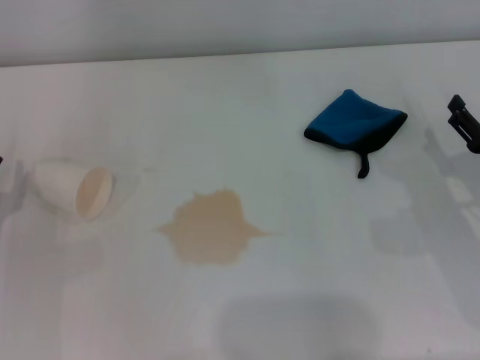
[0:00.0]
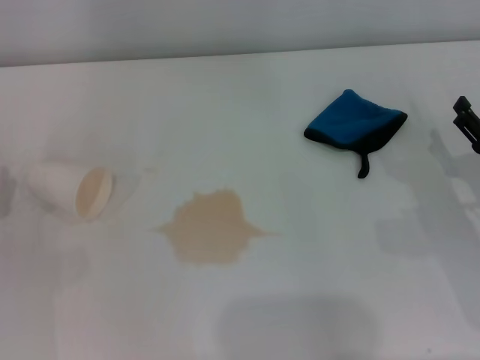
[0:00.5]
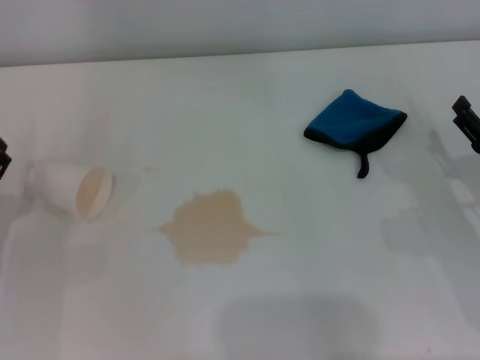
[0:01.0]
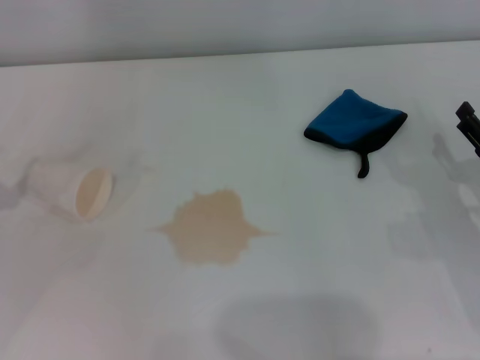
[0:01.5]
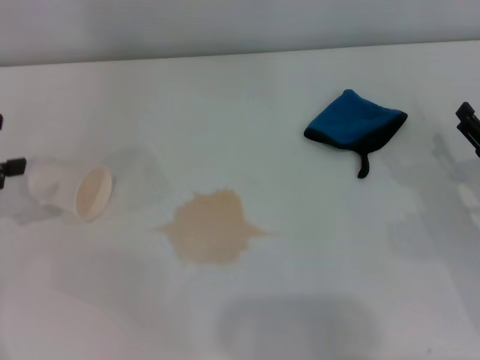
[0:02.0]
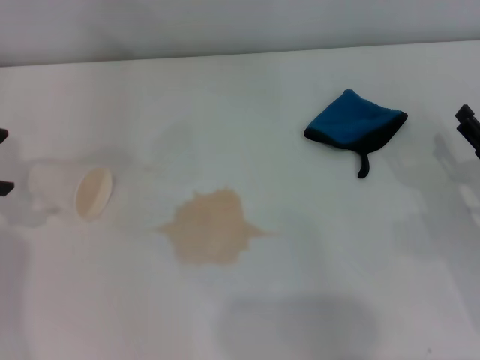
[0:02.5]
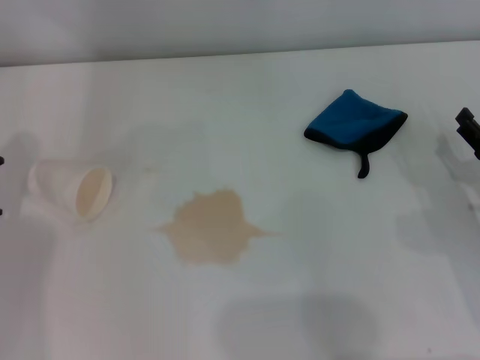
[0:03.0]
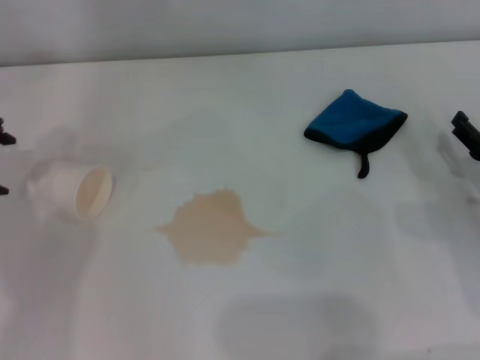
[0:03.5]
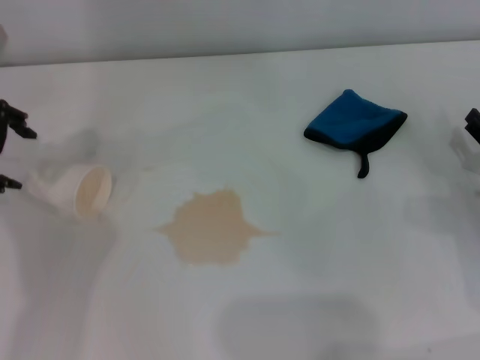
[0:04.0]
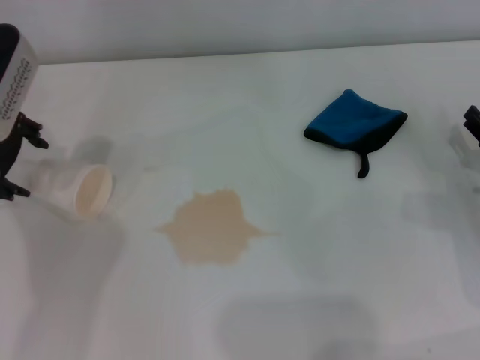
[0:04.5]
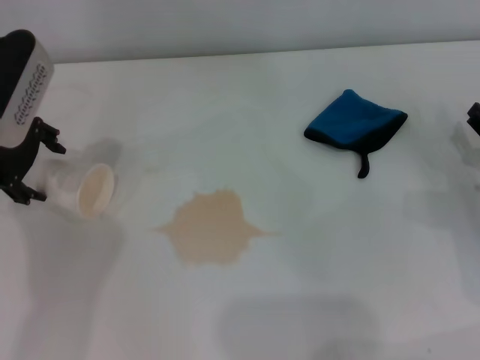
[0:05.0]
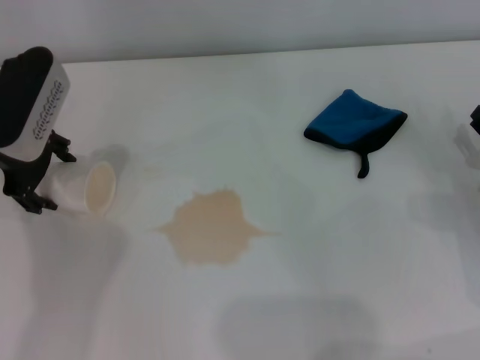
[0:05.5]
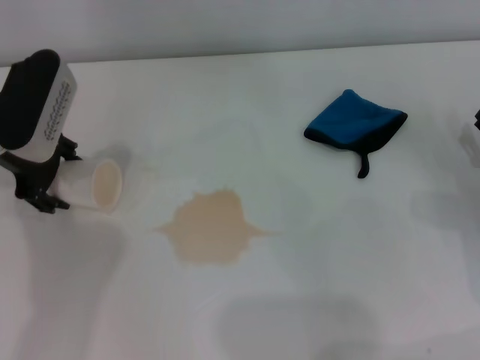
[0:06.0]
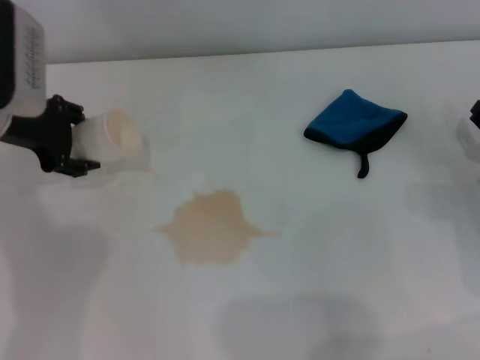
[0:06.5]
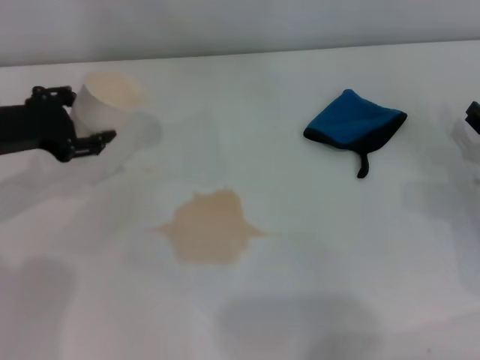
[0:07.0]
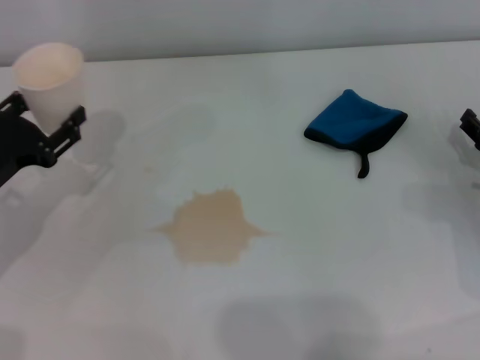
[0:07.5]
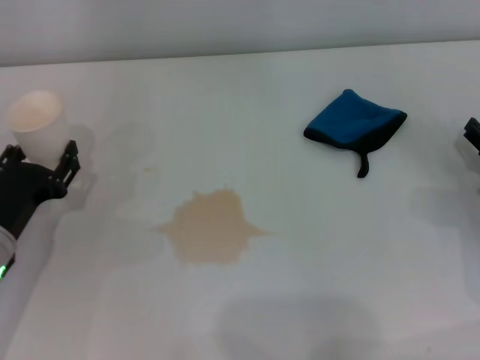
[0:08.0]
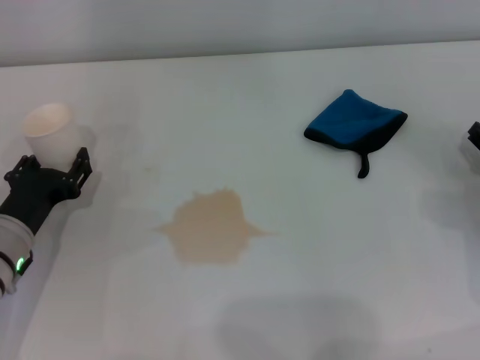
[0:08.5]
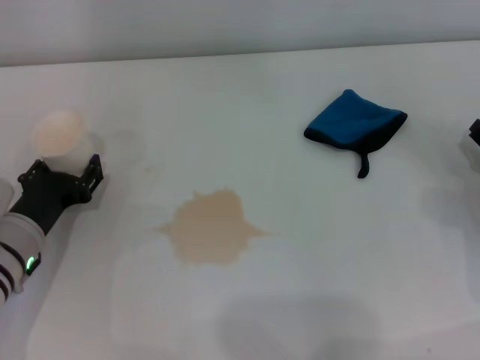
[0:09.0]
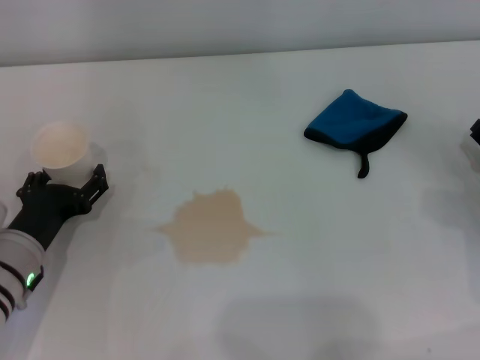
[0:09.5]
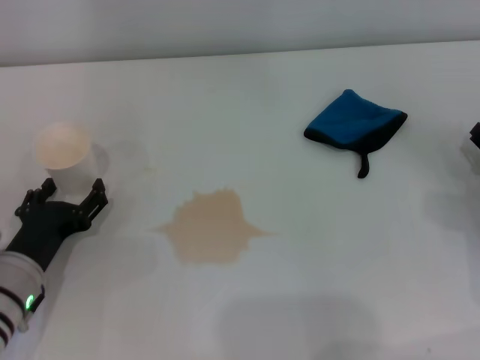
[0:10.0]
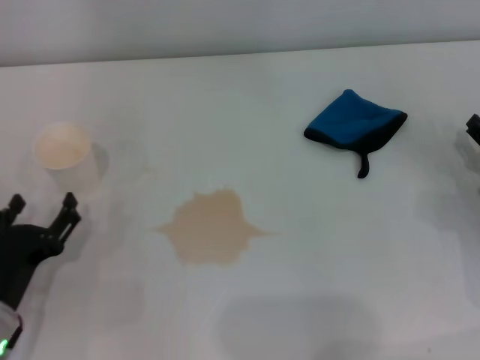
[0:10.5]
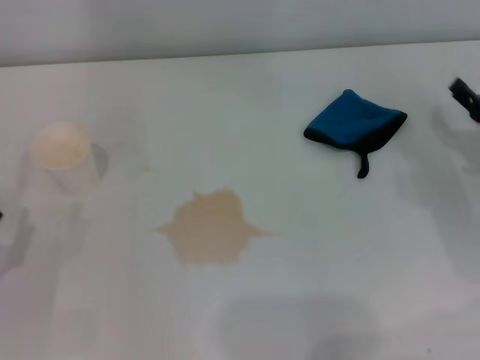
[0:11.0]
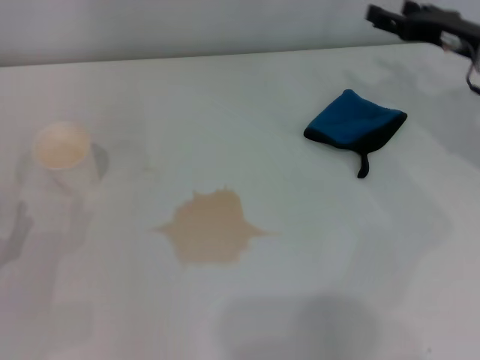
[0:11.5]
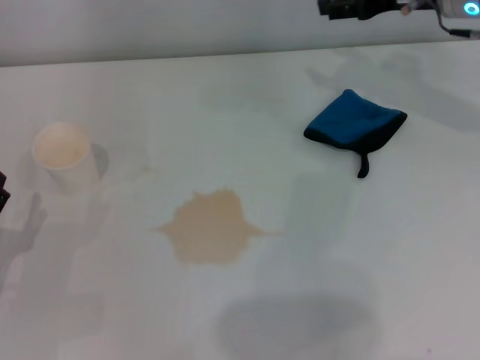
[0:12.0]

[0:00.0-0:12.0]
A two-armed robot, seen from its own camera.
Step, 0:00.0 to 0:05.5: Grasp the paper cup with the left gripper.
Step, 0:06.0 to 0:09.0: Stand the paper cup upright with the left gripper.
0:02.0 to 0:04.0: The left gripper shifts approximately 15 cm to the right and forward.
0:04.0 to 0:06.0: The left gripper moves some 5 cm.
0:06.0 to 0:08.0: The left gripper shifts about 20 cm backward and downward, and closes up.
0:08.0 to 0:10.0: The left gripper opens its fingers.
0:10.0 to 0:12.0: The left gripper moves to the left, about 5 cm. Meanwhile the right gripper goes about 30 cm forward, upward and to the left.

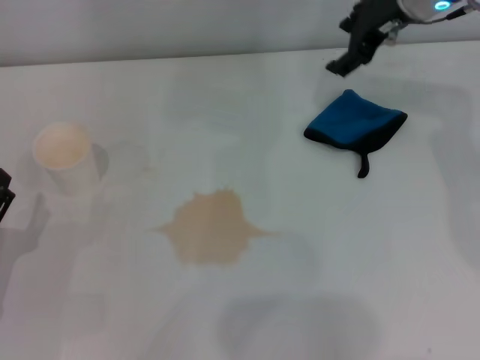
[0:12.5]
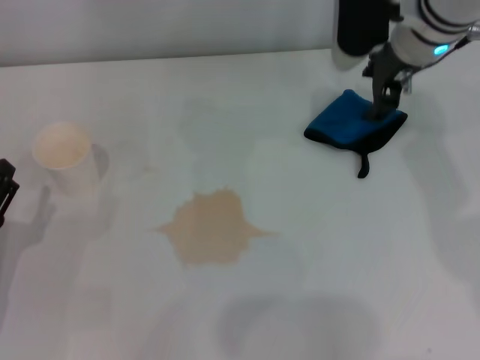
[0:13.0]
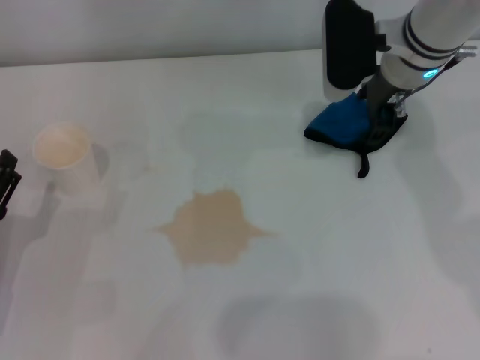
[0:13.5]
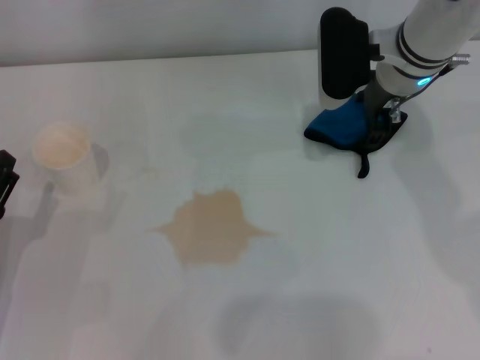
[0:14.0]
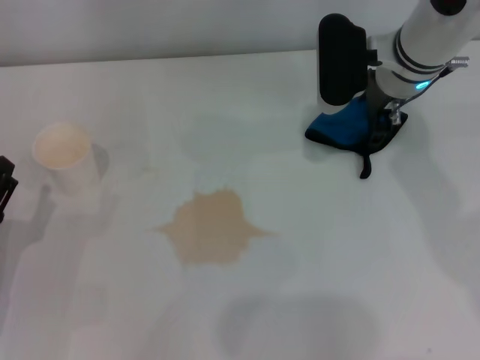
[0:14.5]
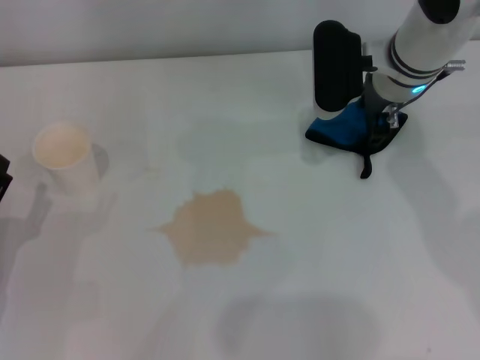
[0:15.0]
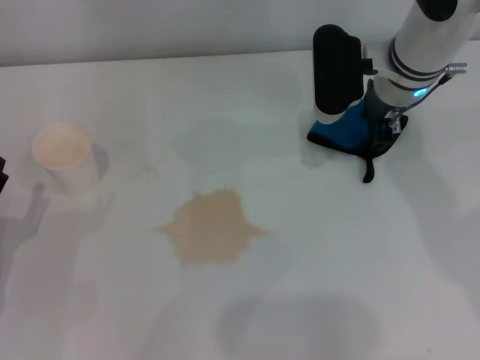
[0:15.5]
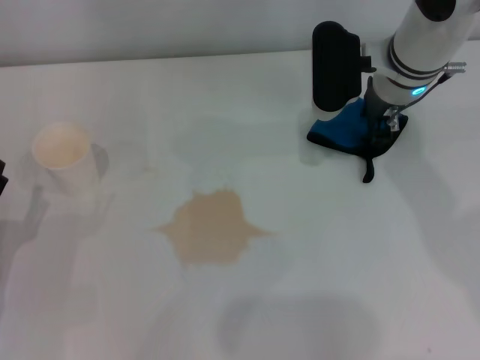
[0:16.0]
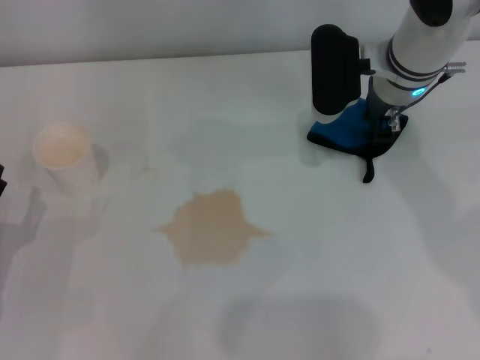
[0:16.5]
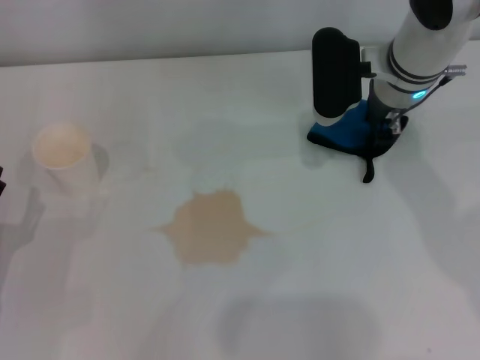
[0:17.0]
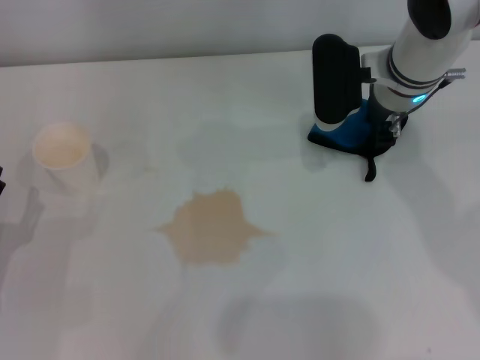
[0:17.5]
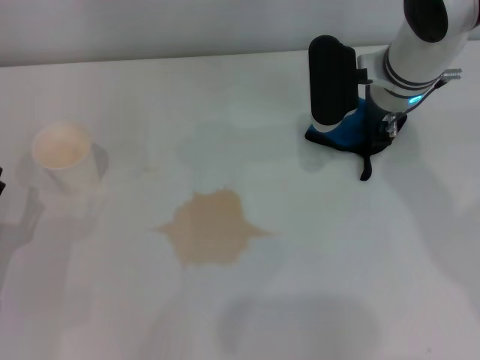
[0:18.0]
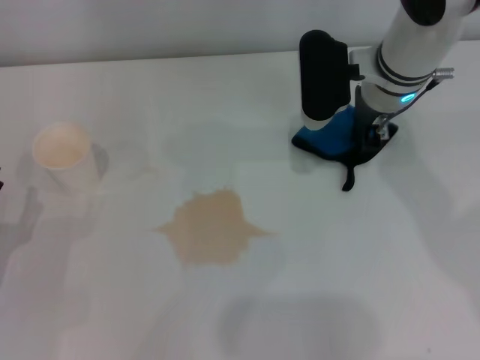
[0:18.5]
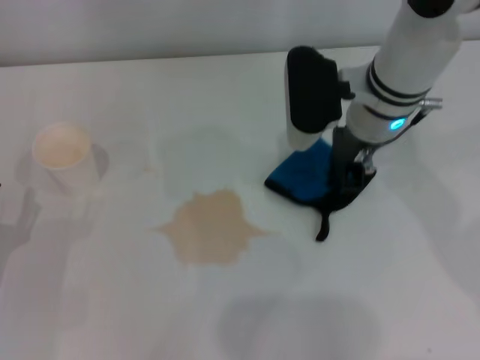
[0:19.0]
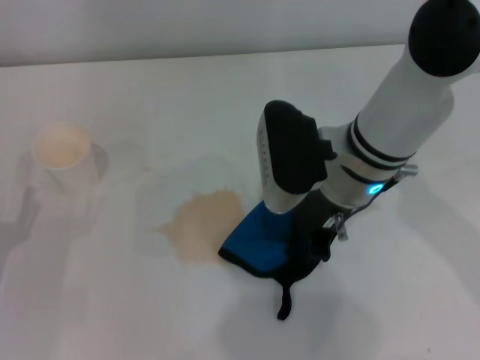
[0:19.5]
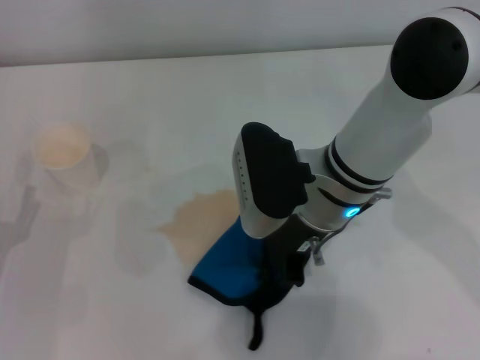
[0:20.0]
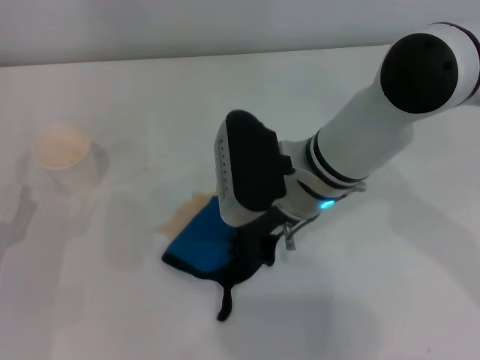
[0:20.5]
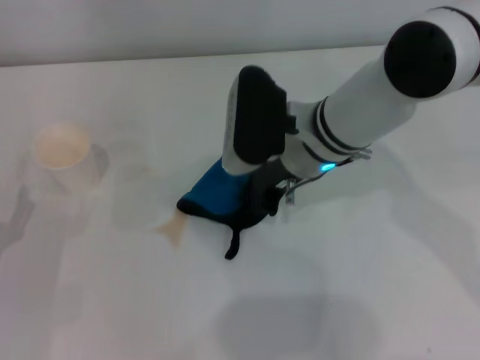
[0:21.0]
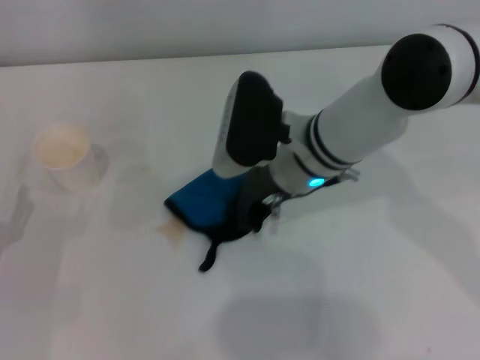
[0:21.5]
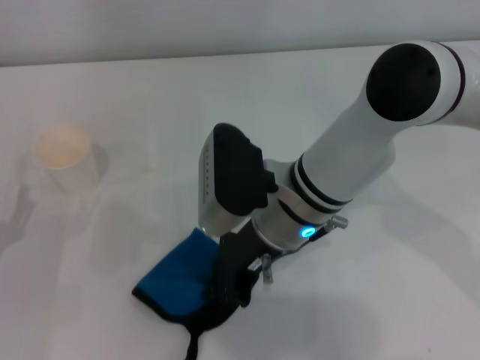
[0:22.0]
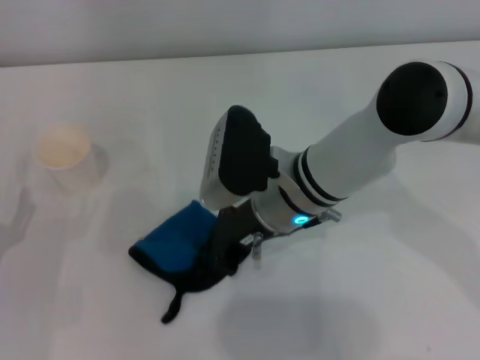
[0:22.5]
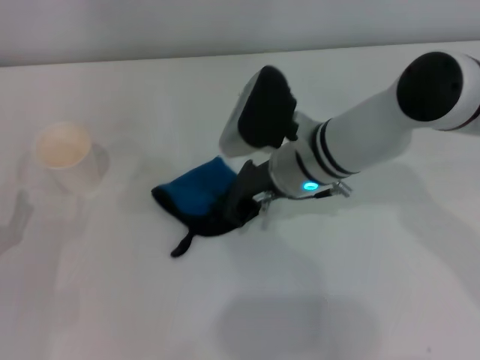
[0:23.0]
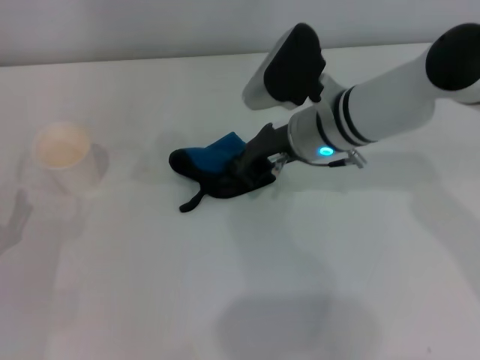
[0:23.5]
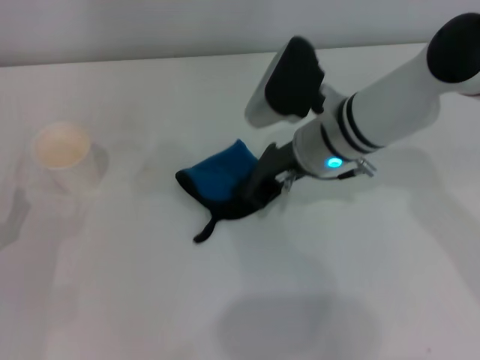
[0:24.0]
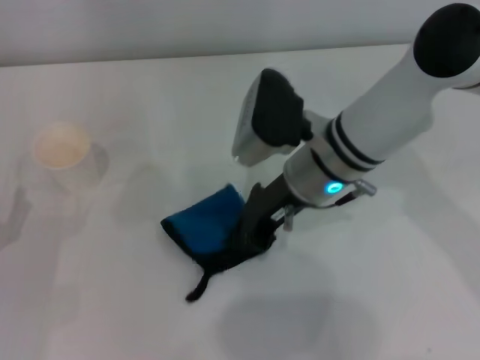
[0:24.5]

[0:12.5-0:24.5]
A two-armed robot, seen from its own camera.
Step, 0:12.5 to 0:18.0: Grasp the rag with the right gripper.
0:12.5 to 0:14.5: The right gripper heads downward, covering roughly 5 cm.
0:14.5 to 0:16.5: The right gripper closes up.
0:16.5 to 0:18.5: Both grippers stay about where they are.
0:18.5 to 0:20.5: The right gripper moves backward and to the left, roughly 15 cm.
0:20.5 to 0:22.5: The grippers make only small movements.

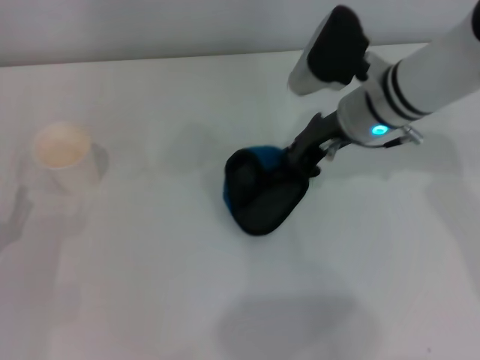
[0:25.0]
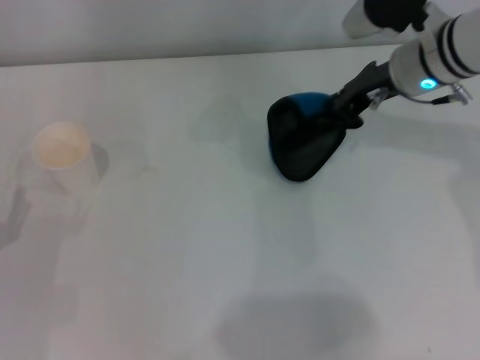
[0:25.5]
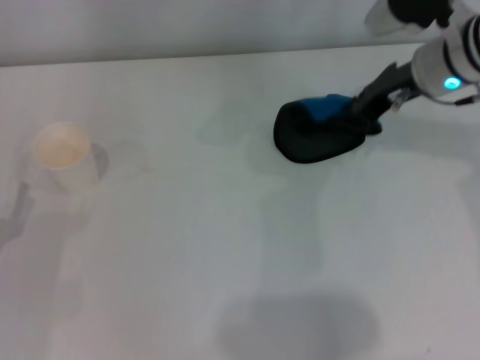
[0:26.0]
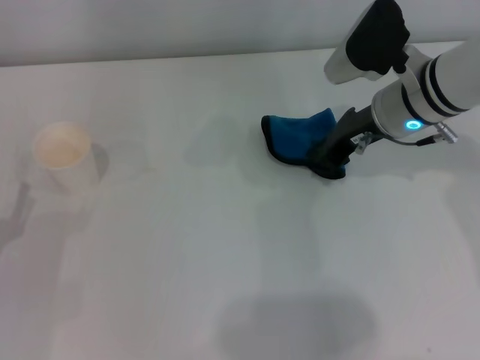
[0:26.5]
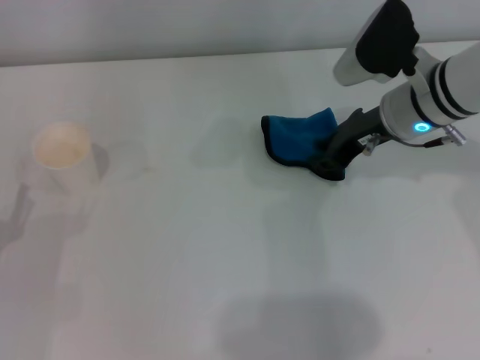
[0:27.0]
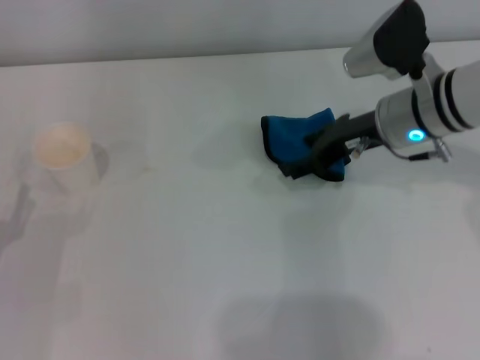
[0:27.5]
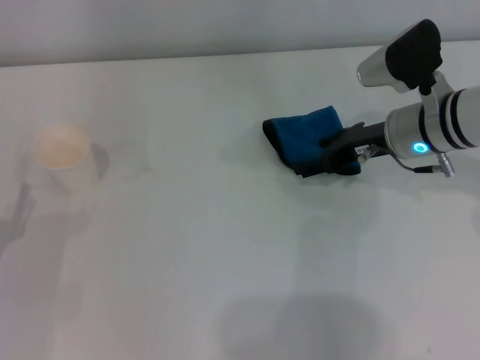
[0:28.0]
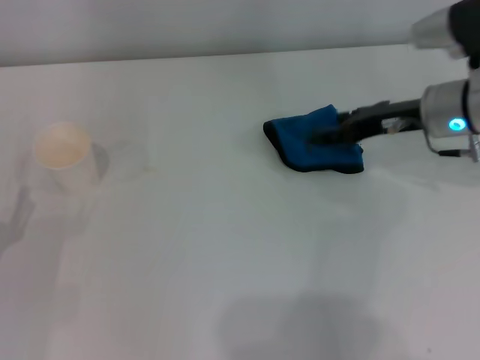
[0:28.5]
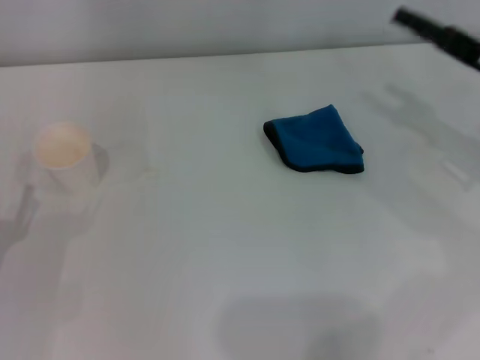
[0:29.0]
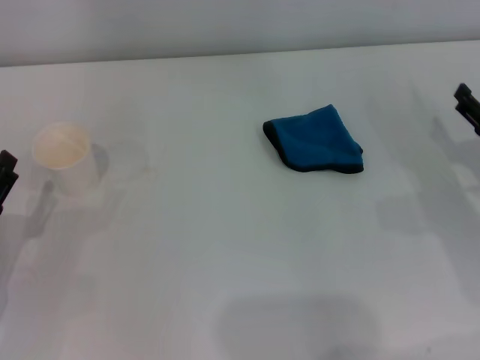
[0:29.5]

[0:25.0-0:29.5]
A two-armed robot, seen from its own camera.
0:27.0 to 0:29.5: The right gripper moves to the right, backward and downward, approximately 20 cm, and opens its fingers.
